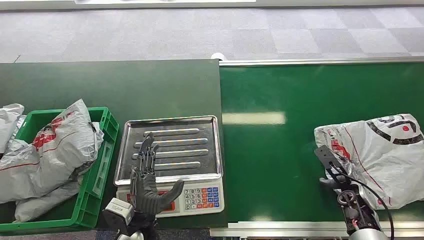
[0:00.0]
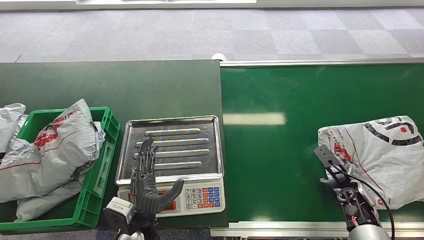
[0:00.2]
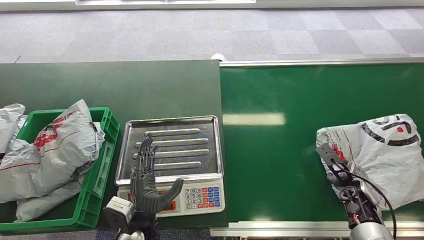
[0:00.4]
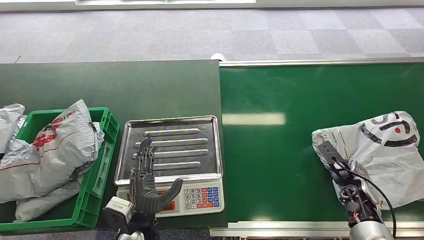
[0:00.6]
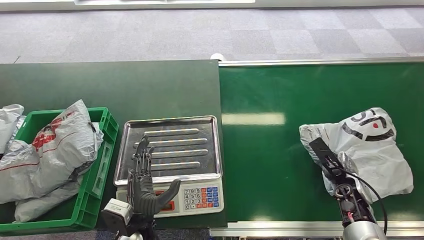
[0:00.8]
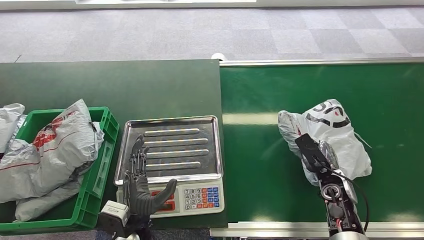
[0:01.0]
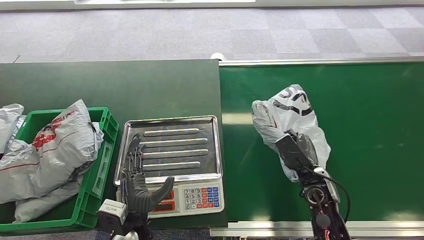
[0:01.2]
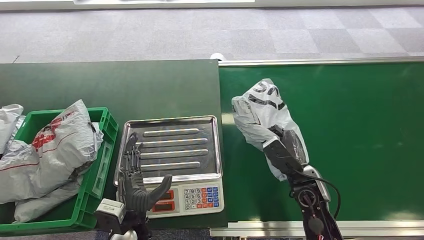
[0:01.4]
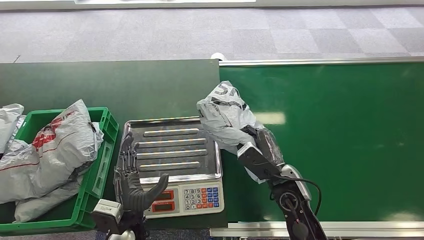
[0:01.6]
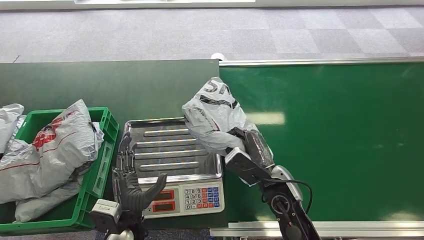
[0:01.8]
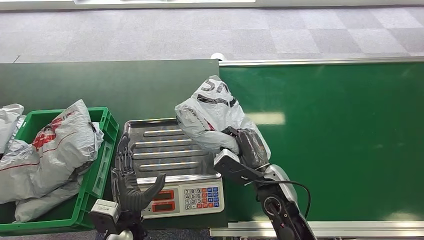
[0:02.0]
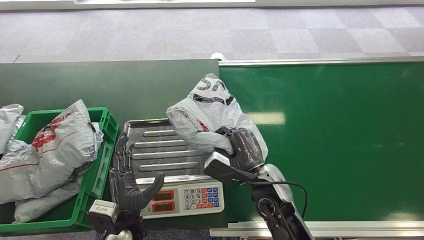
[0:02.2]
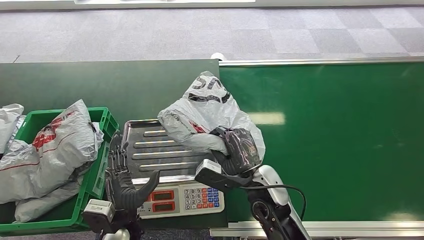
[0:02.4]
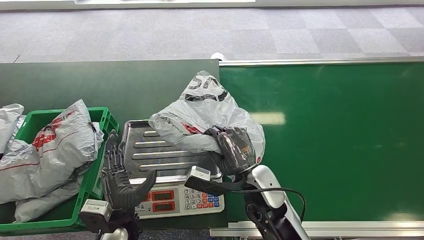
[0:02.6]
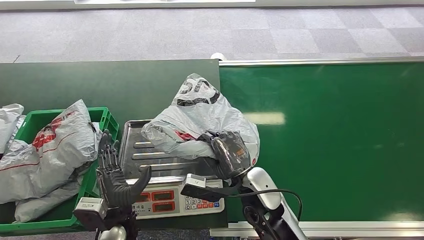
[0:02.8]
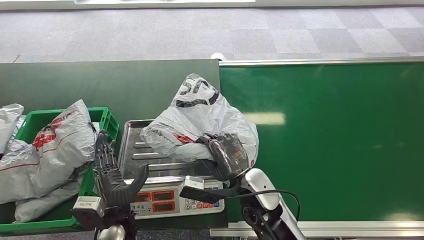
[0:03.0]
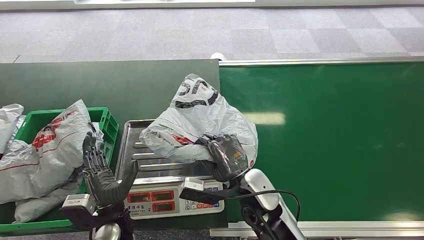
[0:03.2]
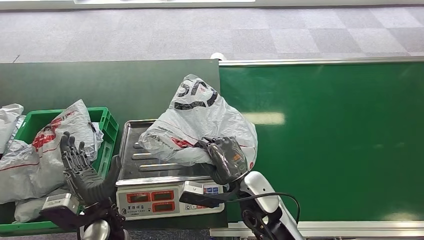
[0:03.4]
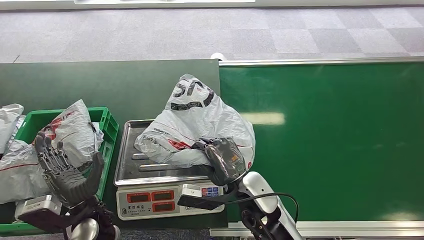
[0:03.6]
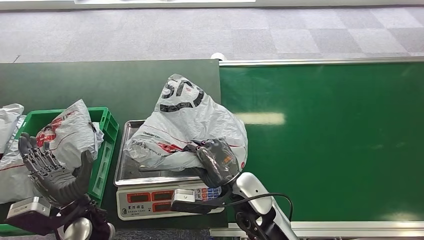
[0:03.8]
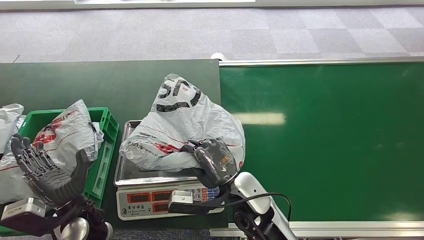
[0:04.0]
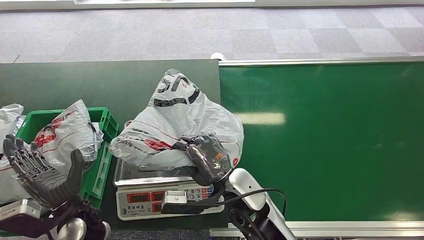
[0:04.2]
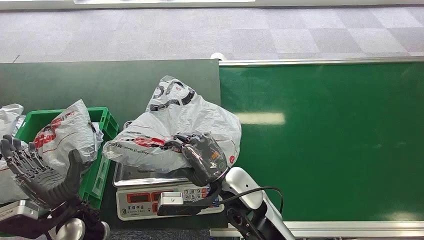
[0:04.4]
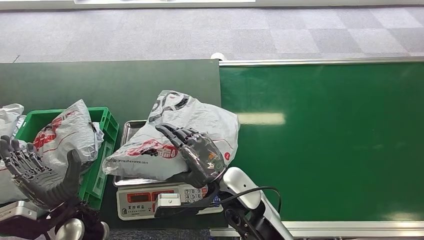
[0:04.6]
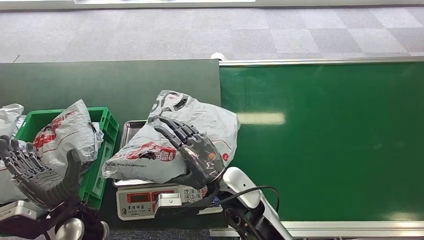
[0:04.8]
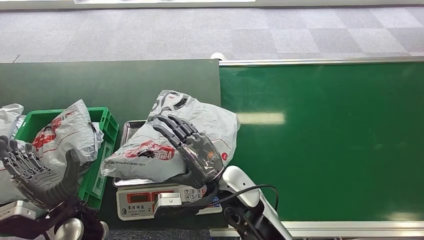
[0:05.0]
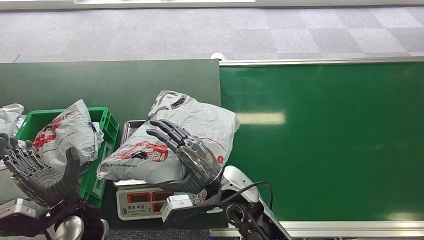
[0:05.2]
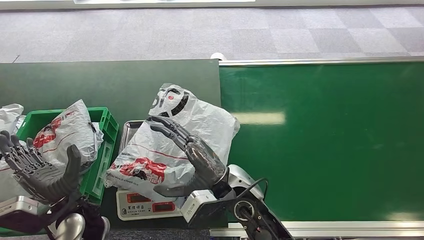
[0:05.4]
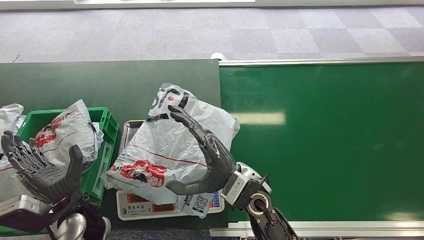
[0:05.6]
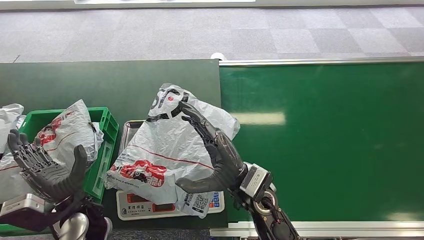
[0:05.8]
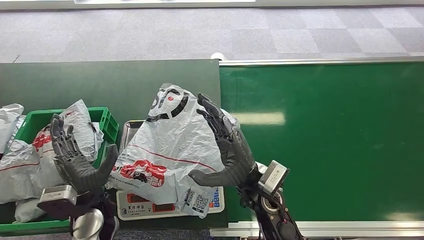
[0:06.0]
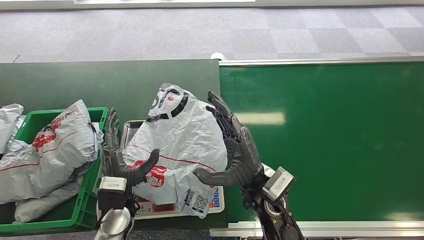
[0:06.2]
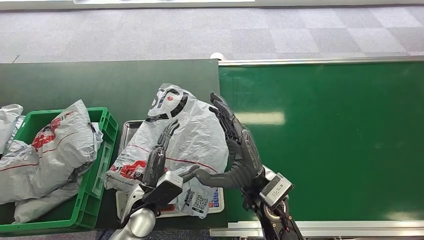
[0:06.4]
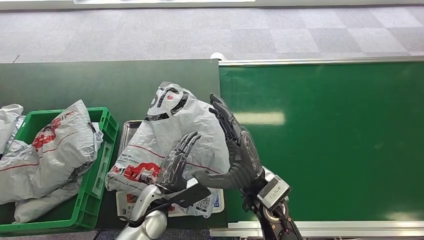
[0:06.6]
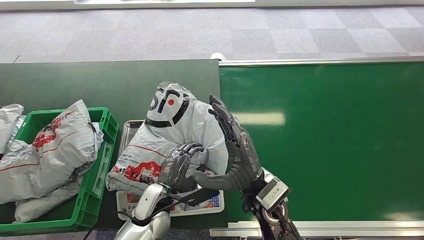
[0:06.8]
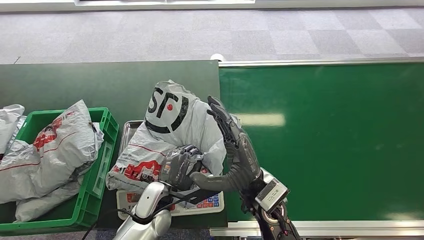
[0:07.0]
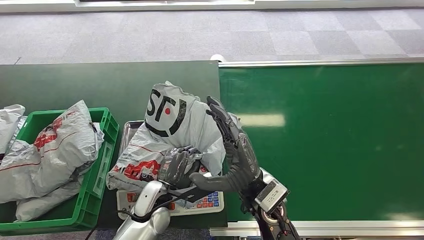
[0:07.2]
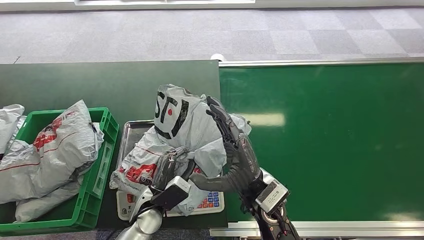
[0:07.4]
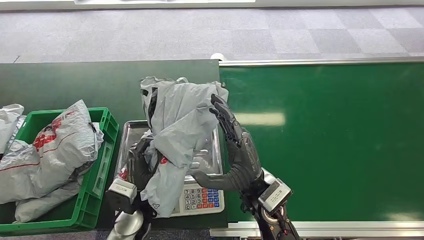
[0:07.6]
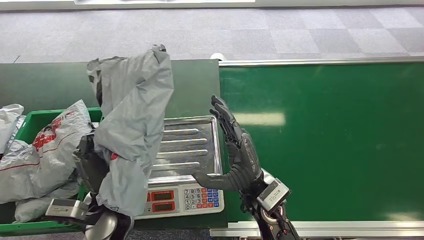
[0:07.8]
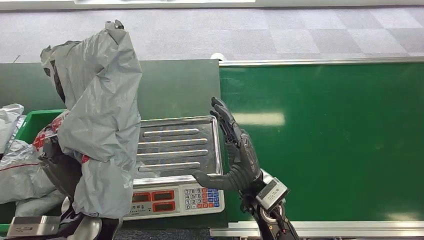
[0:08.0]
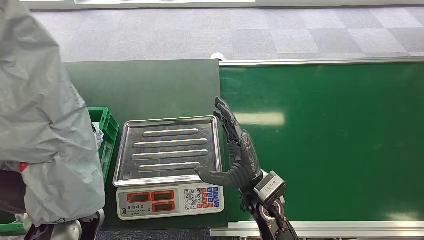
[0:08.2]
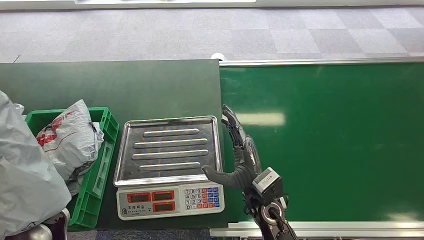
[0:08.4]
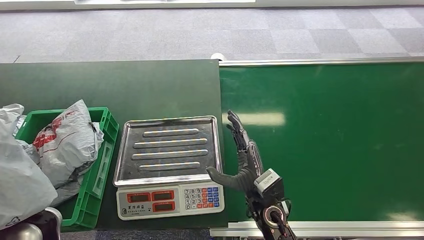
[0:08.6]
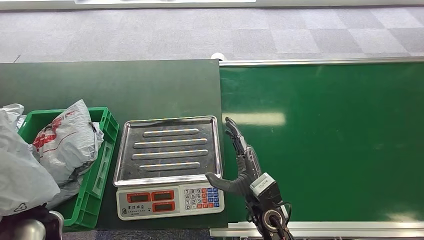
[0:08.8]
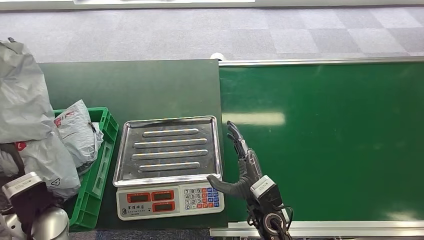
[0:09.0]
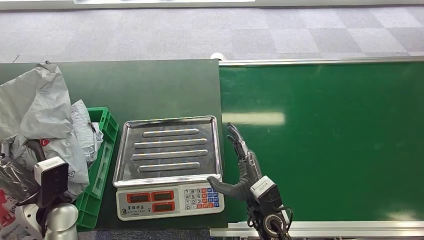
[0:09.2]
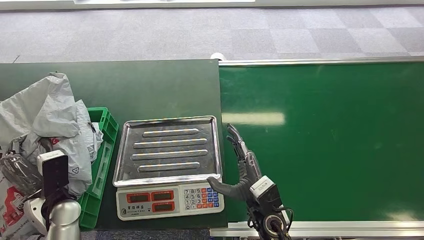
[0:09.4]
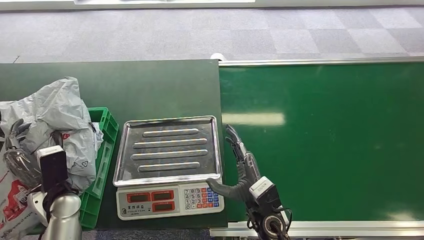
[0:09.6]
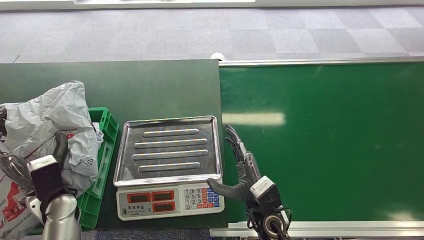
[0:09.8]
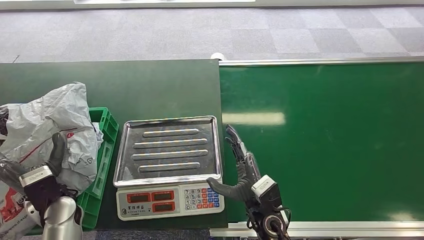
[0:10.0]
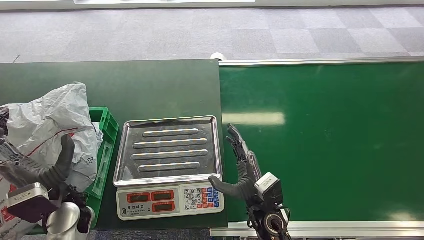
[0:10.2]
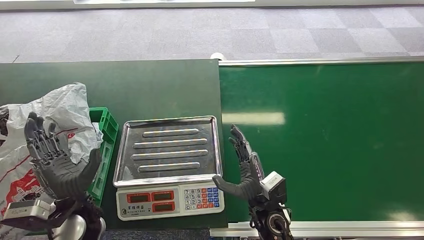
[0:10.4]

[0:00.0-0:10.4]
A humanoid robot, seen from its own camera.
Step, 0:00.0 to 0:01.4: Pick up the package from the conveyor belt.
Step, 0:02.0 to 0:04.4: Place the package onto the inbound machine.
Step, 0:05.4 to 0:08.2: Pick up the package from the inbound machine.
Step, 0:09.6 to 0:10.4: Place the package into the parcel locker.
0:01.4 to 0:03.0: The right hand shifts approximately 15 cm to the left.
0:03.0 to 0:04.4: The left hand moves to the left, approximately 5 cm.
0:06.0 to 0:07.4: The left hand heads to the right and downward, covering some 10 cm.
0:09.0 to 0:10.4: The left hand heads to the right, covering roughly 5 cm.

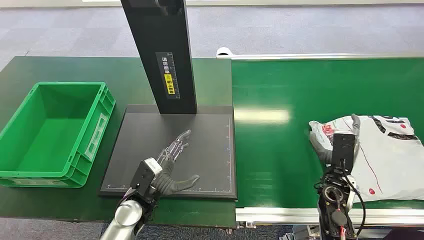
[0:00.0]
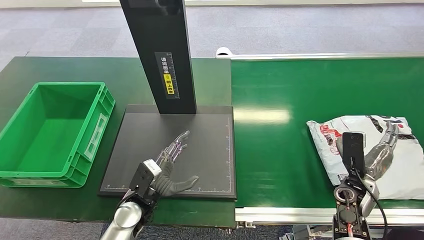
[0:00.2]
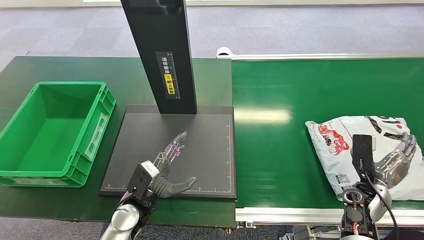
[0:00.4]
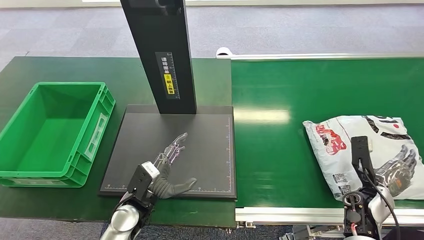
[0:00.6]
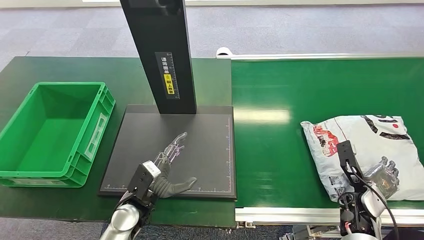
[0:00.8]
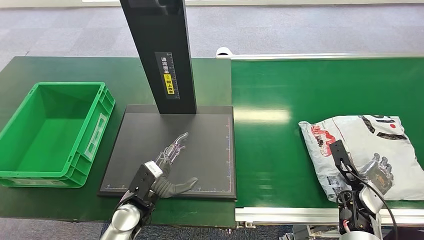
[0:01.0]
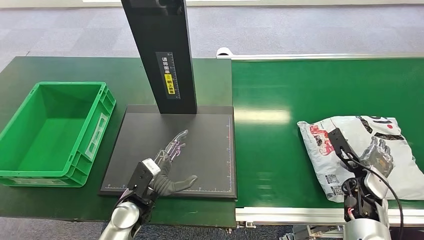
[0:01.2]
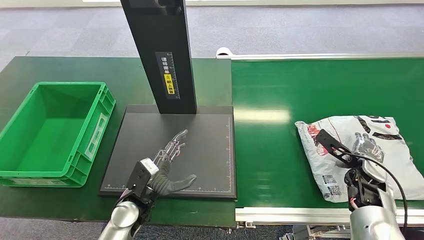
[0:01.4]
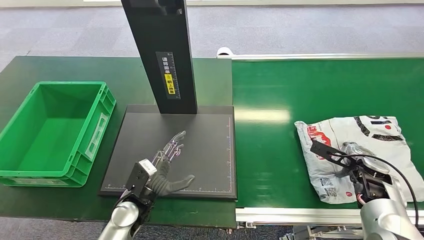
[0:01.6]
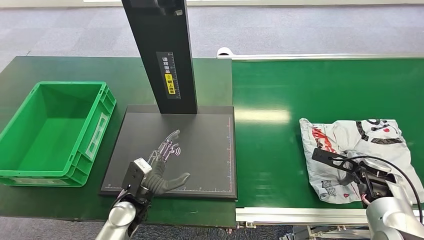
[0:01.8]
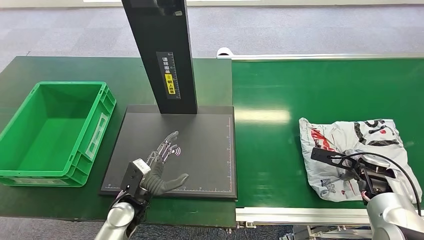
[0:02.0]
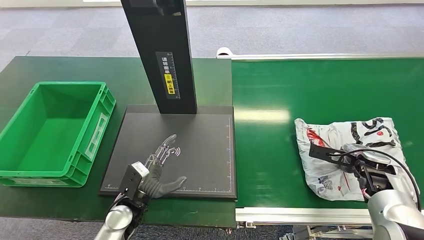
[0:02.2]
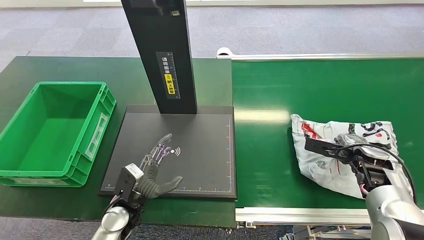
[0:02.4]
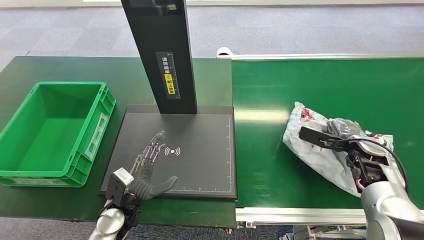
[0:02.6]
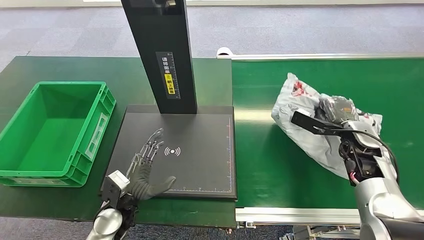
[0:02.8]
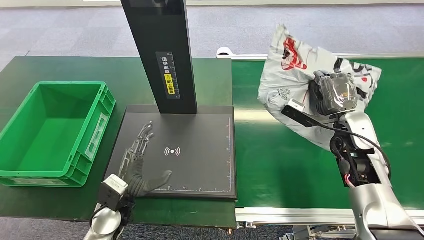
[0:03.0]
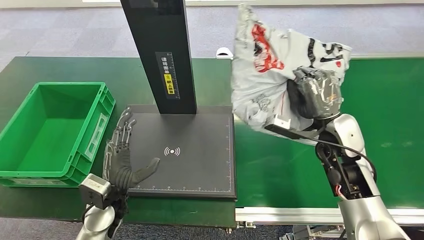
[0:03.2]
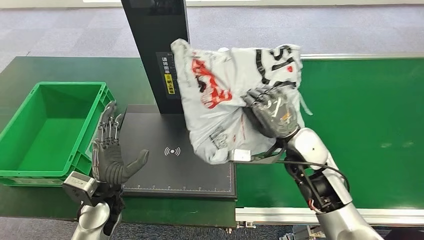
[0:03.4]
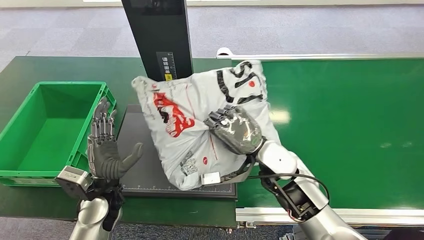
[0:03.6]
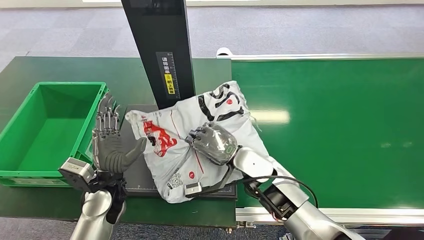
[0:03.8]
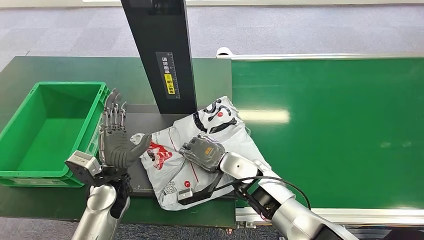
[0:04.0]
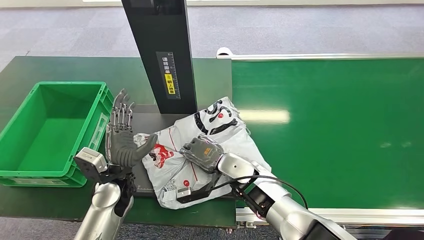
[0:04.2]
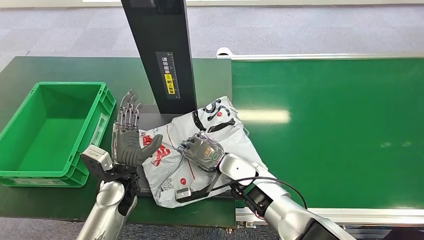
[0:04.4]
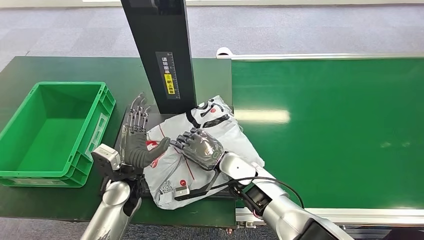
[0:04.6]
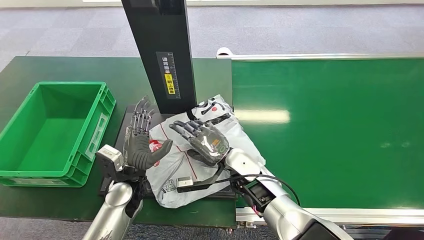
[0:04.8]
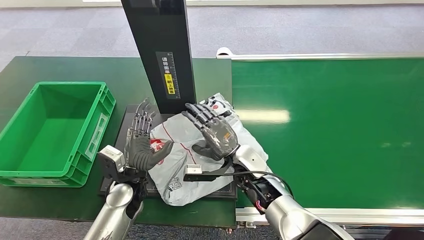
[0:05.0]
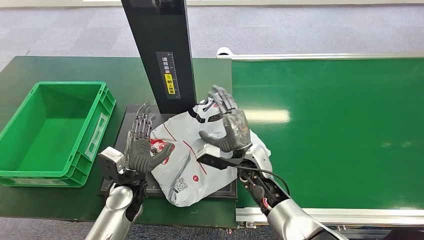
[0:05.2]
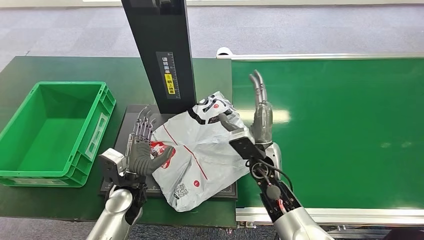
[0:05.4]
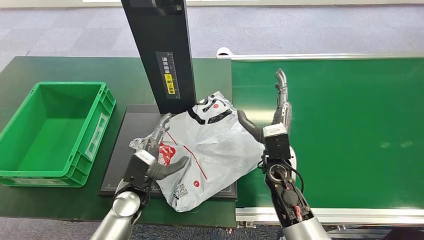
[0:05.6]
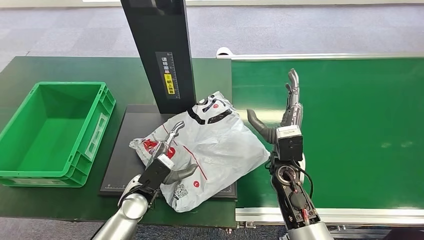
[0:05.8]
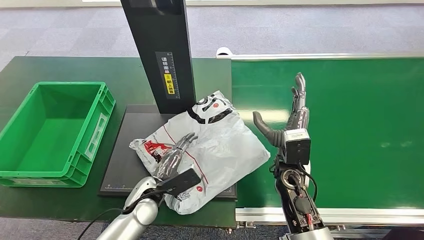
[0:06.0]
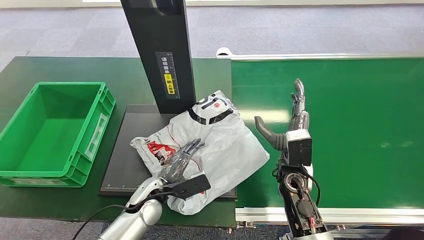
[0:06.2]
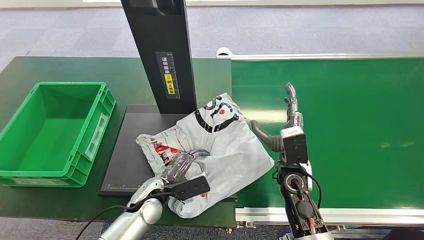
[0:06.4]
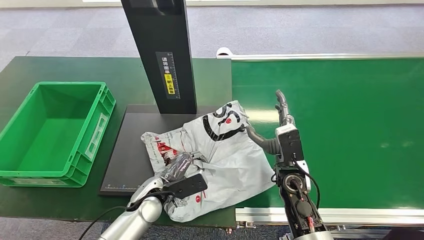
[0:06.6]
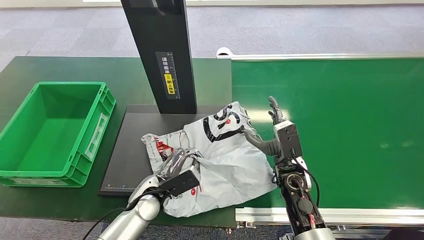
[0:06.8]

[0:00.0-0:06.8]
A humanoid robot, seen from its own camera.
Step, 0:00.0 to 0:02.8: Pick up the package from the conveyor belt.
Step, 0:03.0 to 0:05.0: Place the package onto the inbound machine.
0:01.4 to 0:02.8: The right hand heads upward and forward, covering approximately 10 cm.
0:04.0 to 0:05.4: The left hand moves some 5 cm.
0:05.4 to 0:06.8: The right hand is displaced to the right by roughly 5 cm.
